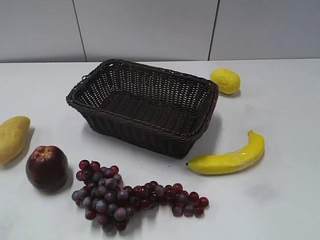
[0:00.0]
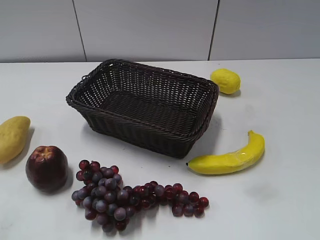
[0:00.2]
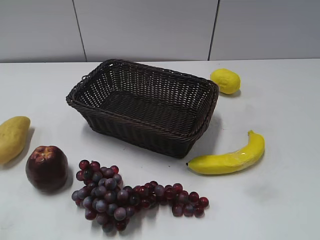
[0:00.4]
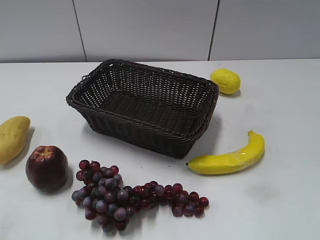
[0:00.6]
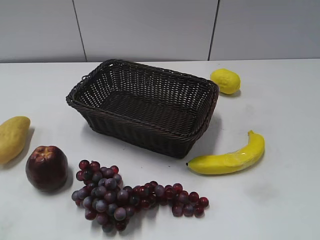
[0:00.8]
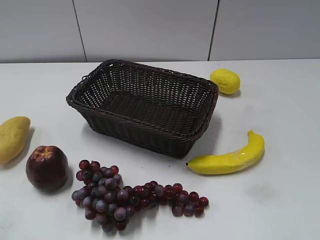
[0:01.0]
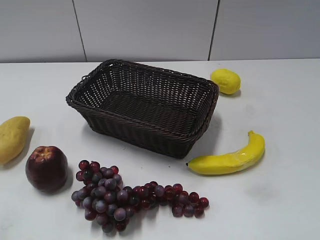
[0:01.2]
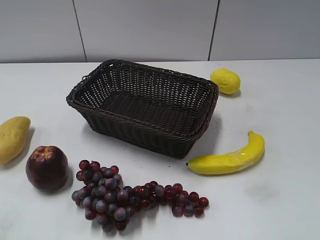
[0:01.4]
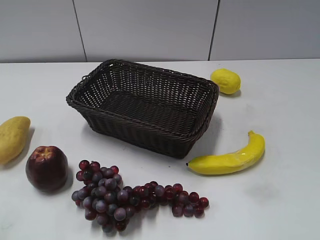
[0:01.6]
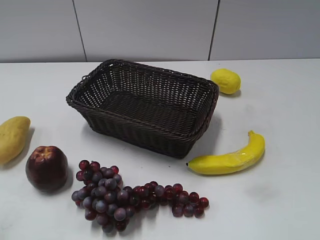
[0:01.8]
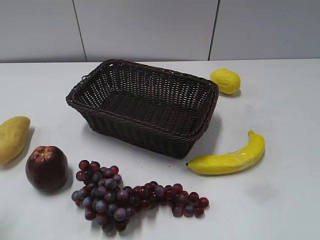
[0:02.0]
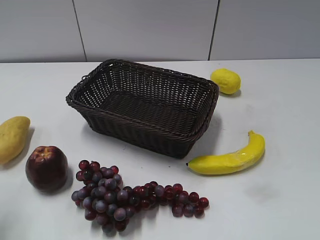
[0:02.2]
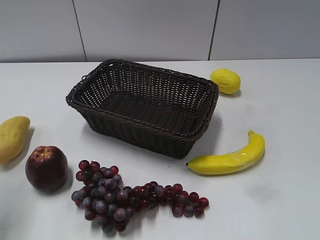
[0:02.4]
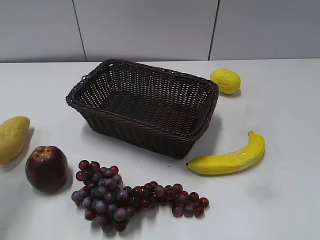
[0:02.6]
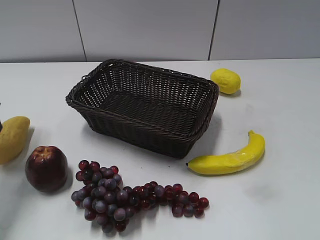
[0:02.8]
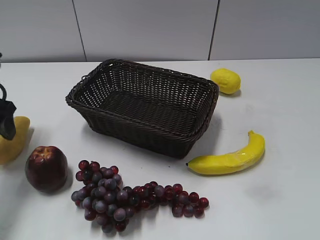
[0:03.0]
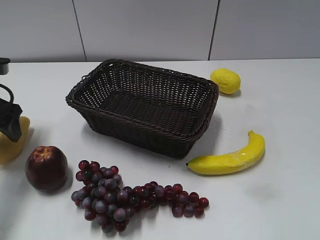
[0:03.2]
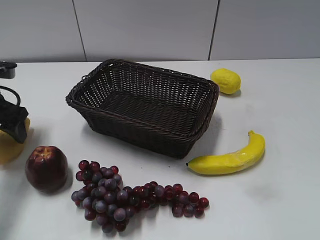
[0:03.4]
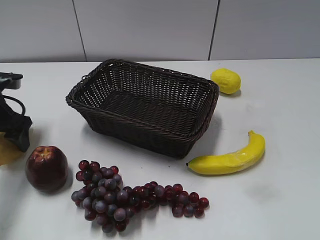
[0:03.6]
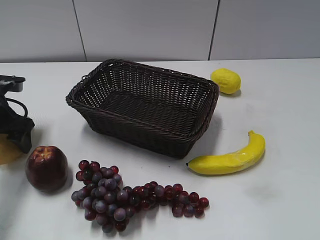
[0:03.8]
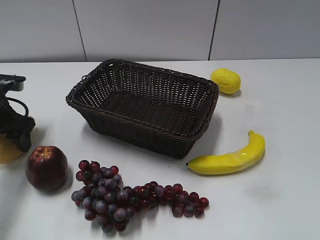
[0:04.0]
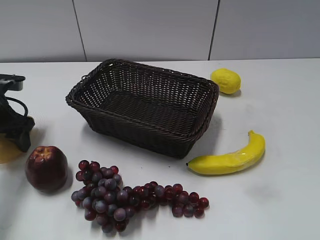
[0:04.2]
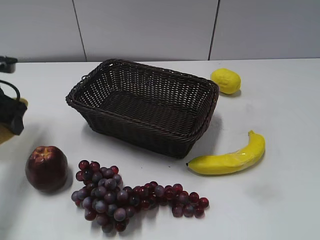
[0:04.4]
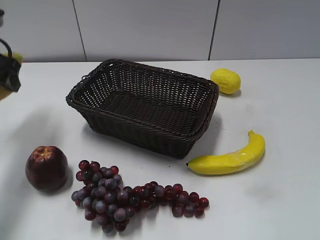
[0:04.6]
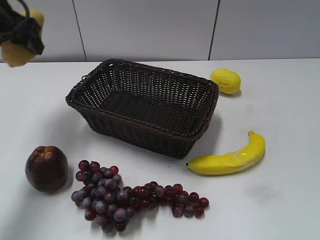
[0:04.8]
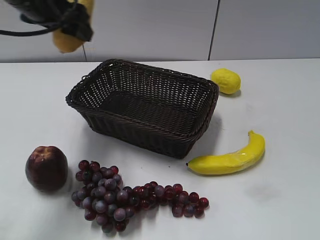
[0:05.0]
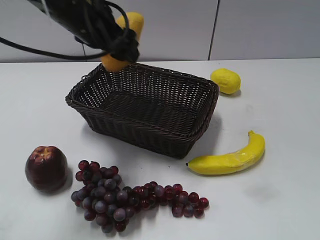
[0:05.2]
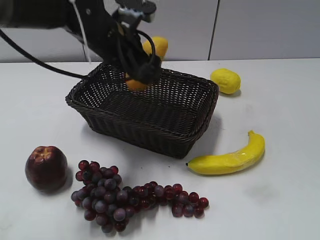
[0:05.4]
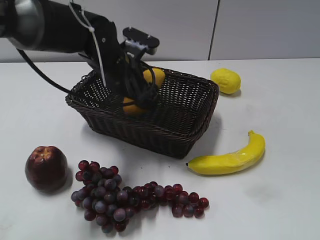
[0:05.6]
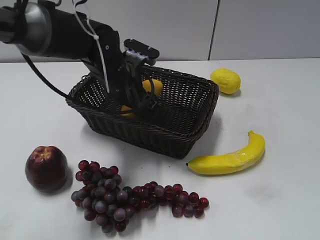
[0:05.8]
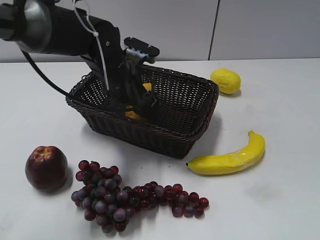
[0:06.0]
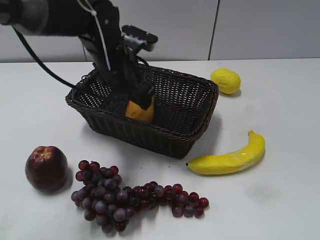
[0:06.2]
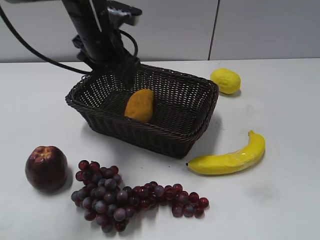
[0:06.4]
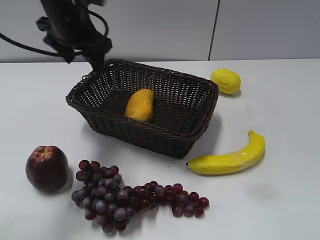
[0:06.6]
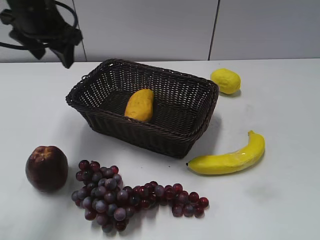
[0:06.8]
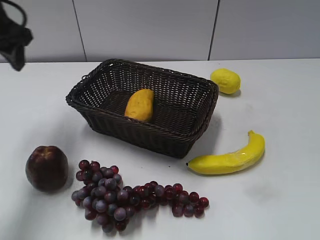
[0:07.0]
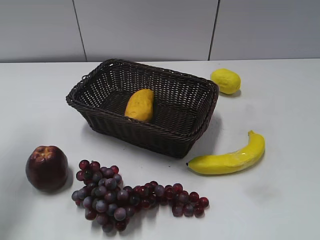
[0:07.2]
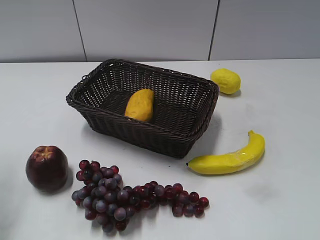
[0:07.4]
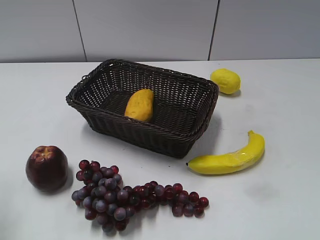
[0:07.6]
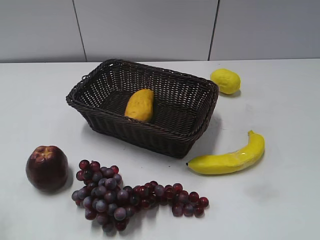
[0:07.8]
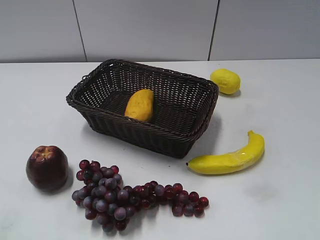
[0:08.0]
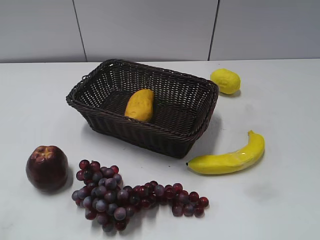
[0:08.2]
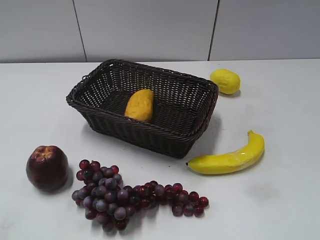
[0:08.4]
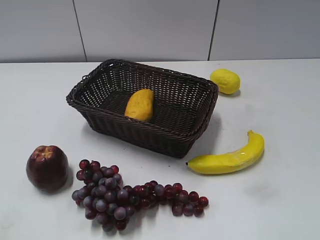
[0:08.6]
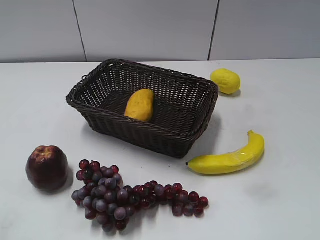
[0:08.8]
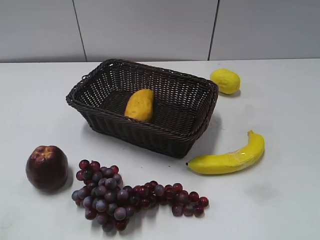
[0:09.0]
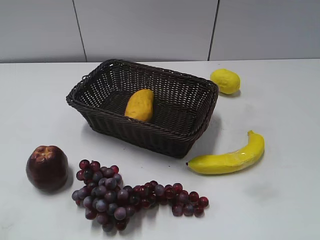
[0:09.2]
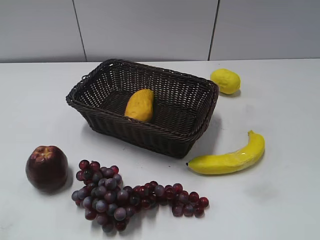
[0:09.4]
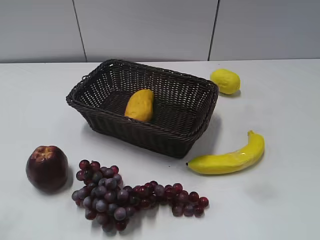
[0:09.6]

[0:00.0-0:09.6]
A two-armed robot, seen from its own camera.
Step, 0:02.8 to 0:04.0: Grasp the mango with left gripper.
Step, 0:04.2 to 0:06.0: Place the mango in the basket with left gripper.
0:01.6 to 0:03.2: The left gripper goes roughly 30 cm forward and downward, and opens.
0:03.2 to 0:04.8: The left gripper heads upward and to the right, covering some 15 cm, and closes.
0:04.8 to 0:06.4: The left gripper goes some 15 cm to the right, and opens up.
0:06.4 to 0:08.0: The left gripper travels backward and to the left by approximately 40 cm, and closes up.

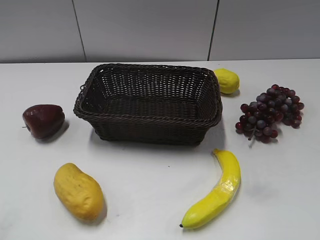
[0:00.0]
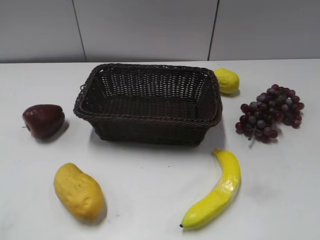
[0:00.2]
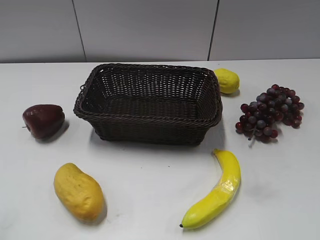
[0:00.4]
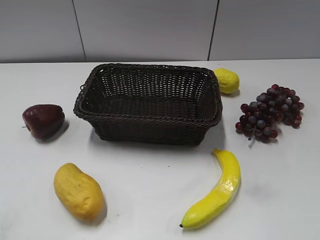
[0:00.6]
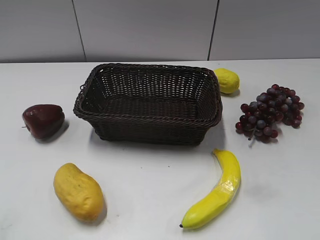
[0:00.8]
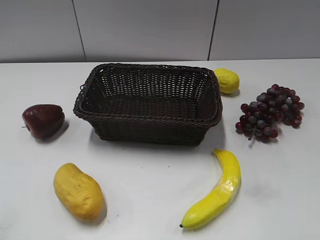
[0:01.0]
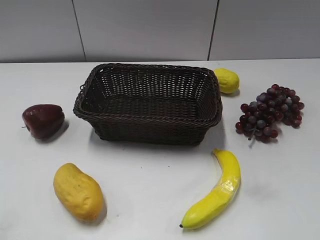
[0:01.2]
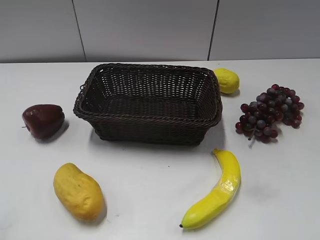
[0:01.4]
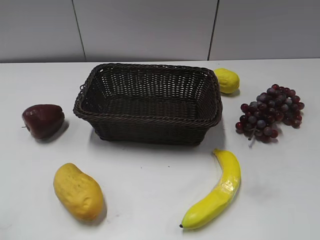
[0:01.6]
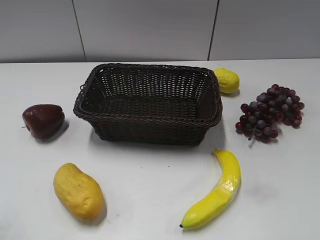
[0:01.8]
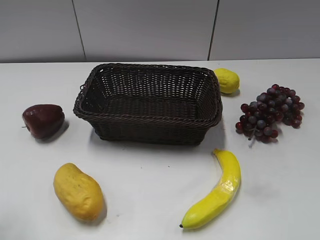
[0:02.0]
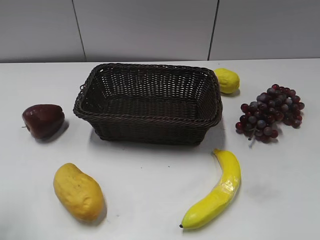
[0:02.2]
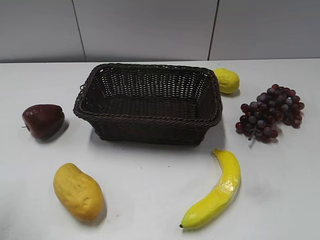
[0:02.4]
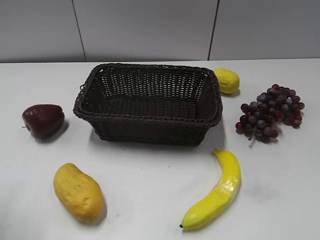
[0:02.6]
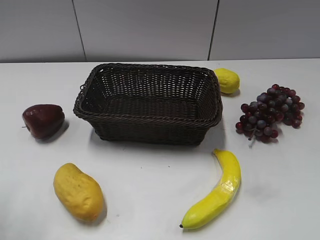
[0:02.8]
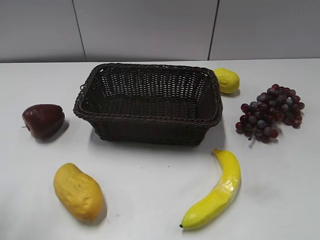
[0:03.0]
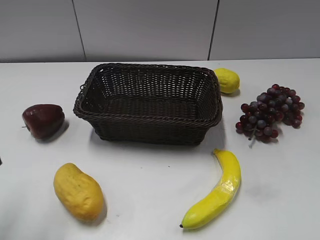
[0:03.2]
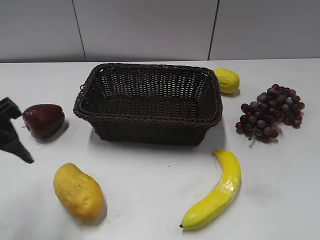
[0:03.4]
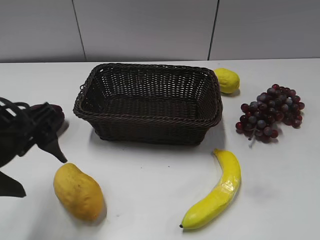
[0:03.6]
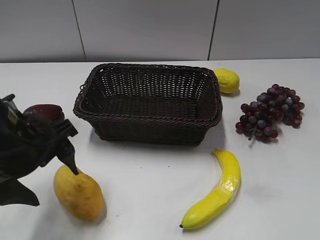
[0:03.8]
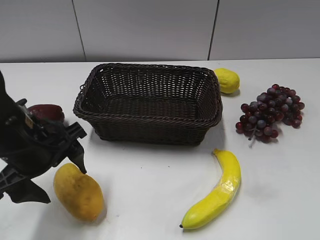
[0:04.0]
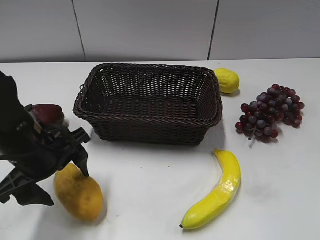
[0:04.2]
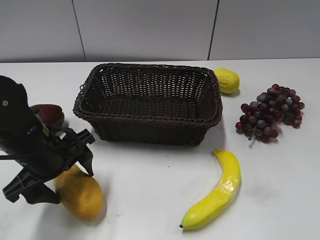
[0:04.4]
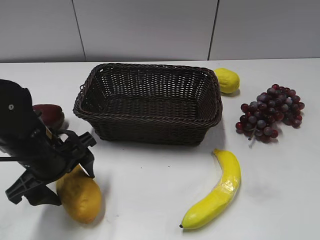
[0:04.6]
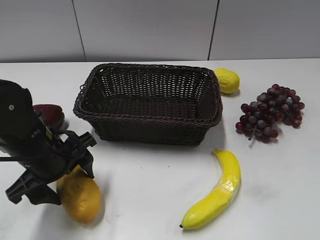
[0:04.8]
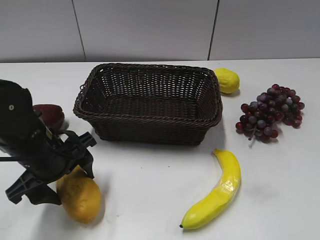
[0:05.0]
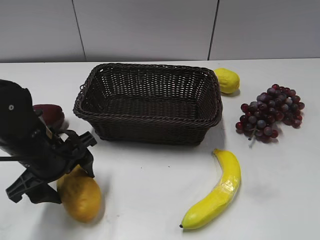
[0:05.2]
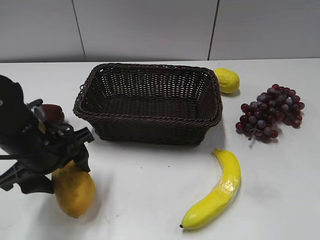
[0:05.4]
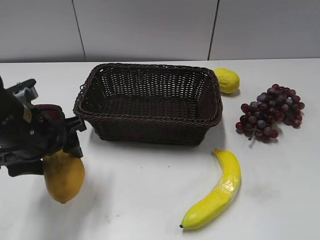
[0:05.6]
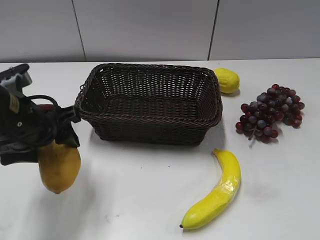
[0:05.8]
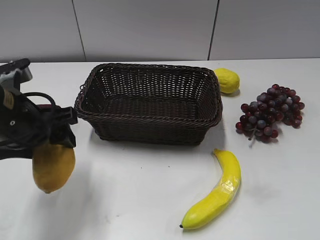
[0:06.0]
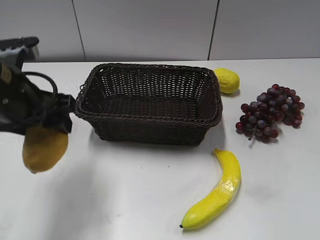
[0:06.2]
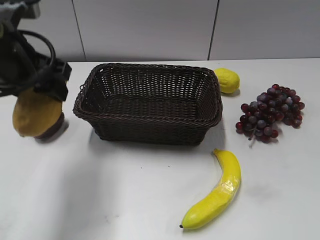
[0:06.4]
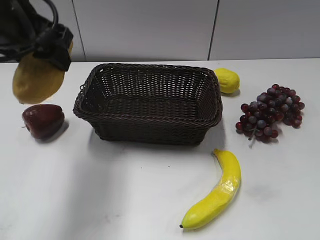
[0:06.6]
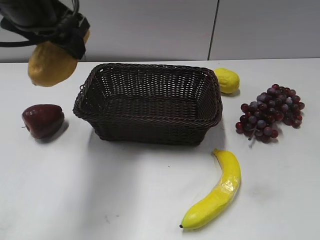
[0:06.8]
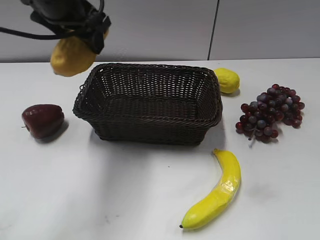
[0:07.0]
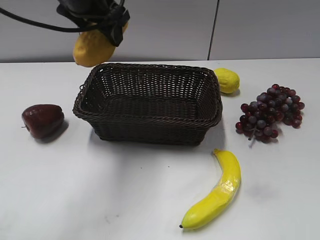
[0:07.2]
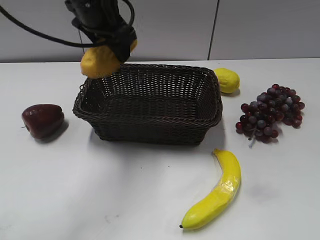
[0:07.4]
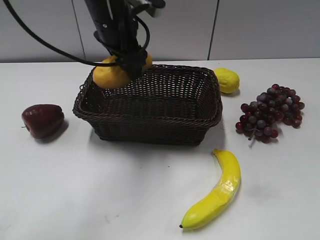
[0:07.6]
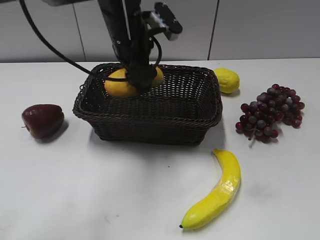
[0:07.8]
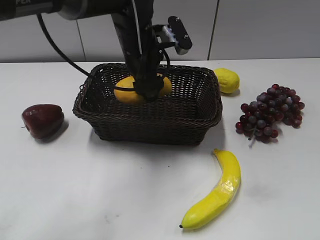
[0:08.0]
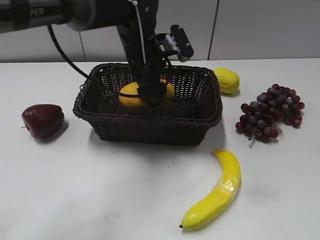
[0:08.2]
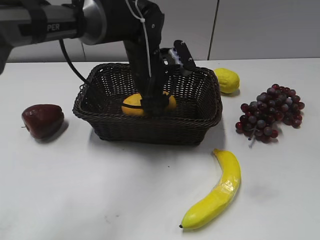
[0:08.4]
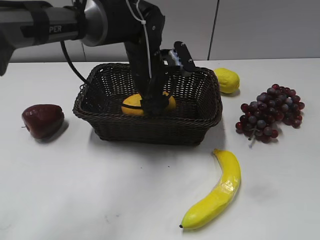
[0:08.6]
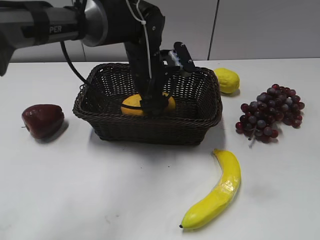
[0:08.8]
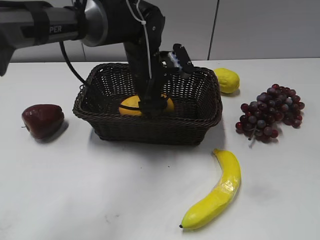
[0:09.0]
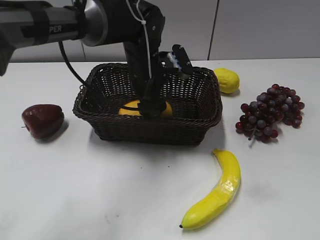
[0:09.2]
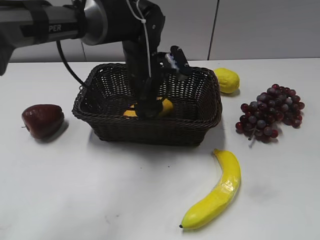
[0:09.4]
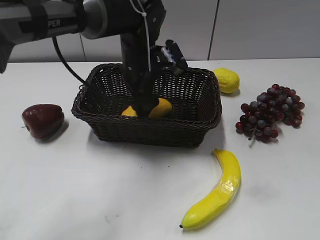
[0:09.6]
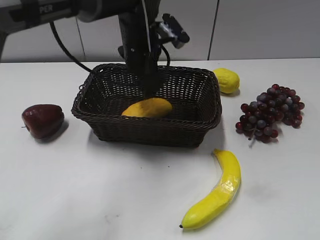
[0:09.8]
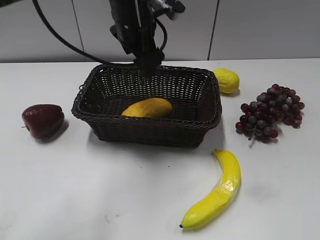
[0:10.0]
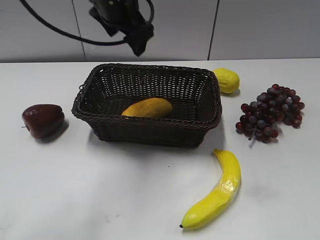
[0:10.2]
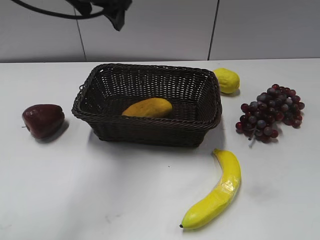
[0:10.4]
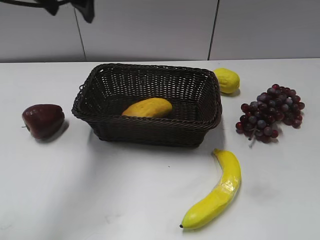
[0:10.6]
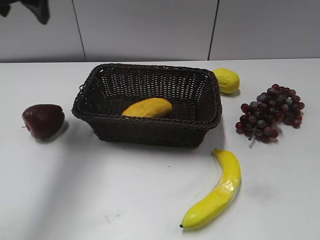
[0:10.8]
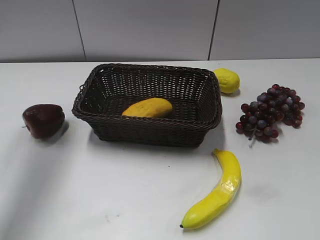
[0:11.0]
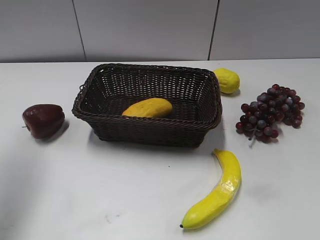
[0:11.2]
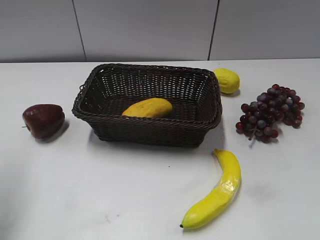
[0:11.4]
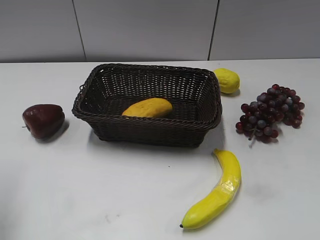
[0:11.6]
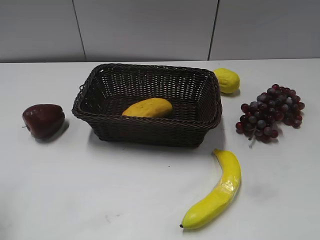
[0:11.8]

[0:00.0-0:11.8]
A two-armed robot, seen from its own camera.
Step, 0:03.2 to 0:05.0: Grasp the mango with left gripper.
Step, 0:05.2 to 0:09.4: Place the mango in the basket with left gripper.
0:03.0 to 0:04.4: The left gripper is displaced downward, to the right and forward by some 20 cm.
0:04.4 to 0:06.0: The left gripper shifts approximately 5 cm upward, and closes up.
0:06.0 to 0:07.4: The left gripper heads forward, upward and to the right, covering some 20 cm.
0:07.4 to 0:08.8: The left gripper goes roughly 15 cm downward and to the right.
0:08.8 to 0:10.4: The left gripper is displaced upward and to the left by some 15 cm, and opens.
0:10.4 to 0:11.8: The left gripper heads to the left and backward, covering some 35 cm.

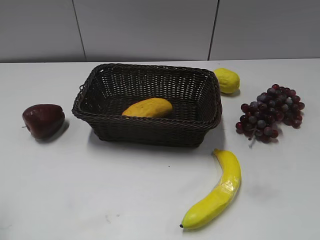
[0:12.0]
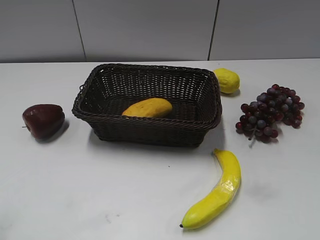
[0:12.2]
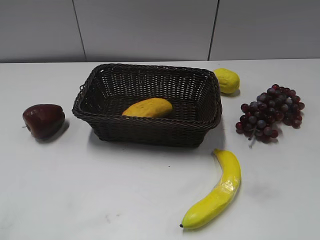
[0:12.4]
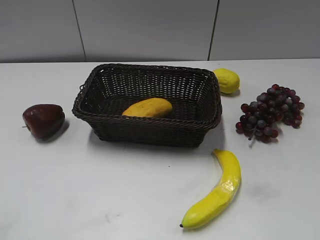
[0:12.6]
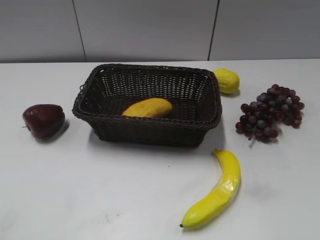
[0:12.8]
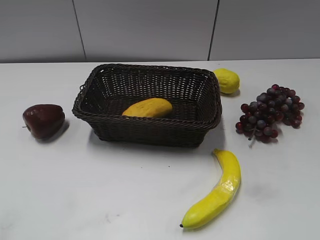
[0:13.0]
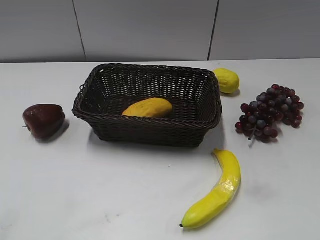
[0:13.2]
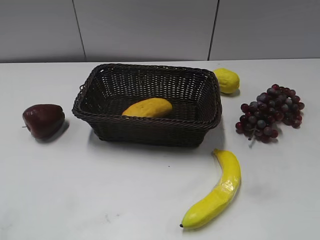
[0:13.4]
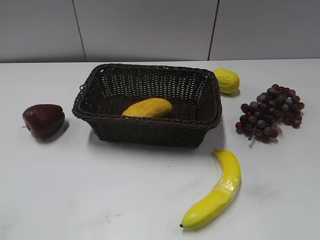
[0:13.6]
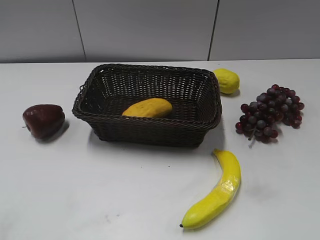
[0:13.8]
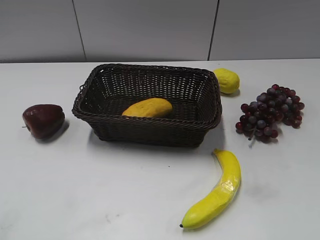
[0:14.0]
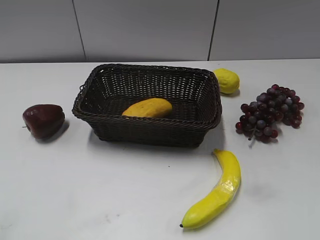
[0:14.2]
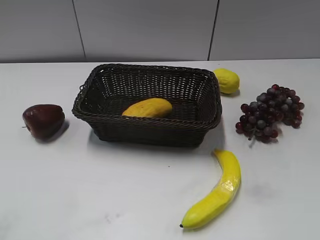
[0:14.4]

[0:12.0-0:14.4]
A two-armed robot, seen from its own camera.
0:13.2 to 0:14.4: Neither gripper changes place.
